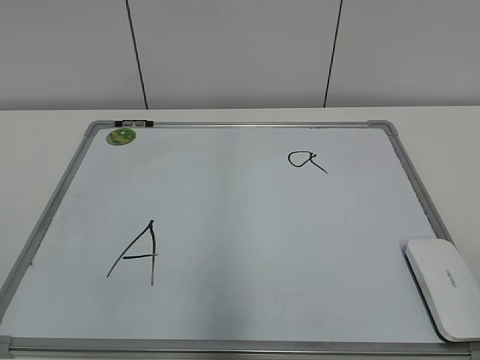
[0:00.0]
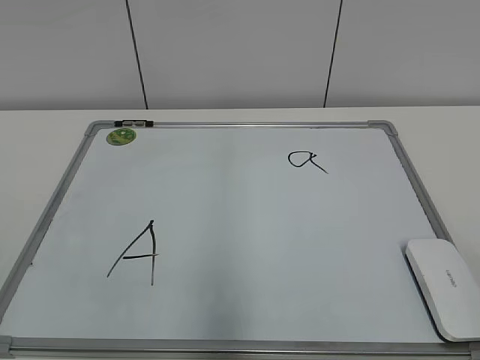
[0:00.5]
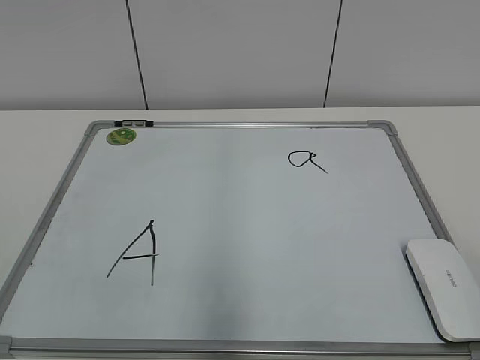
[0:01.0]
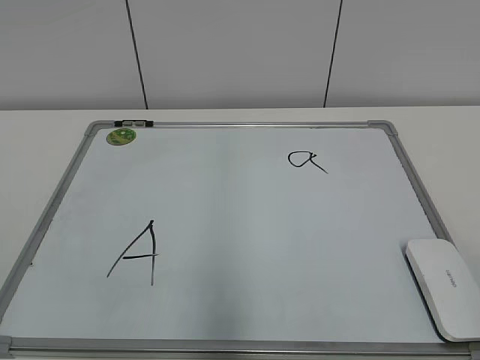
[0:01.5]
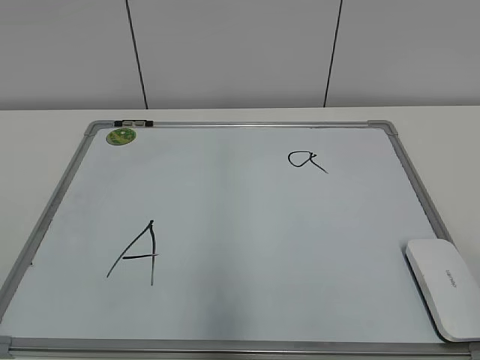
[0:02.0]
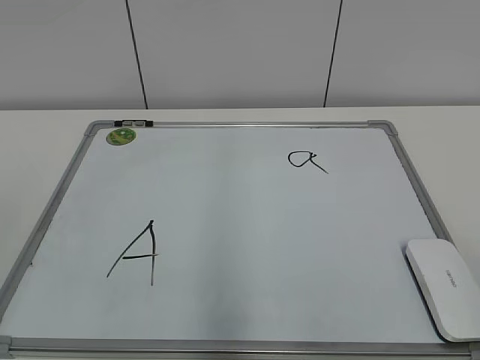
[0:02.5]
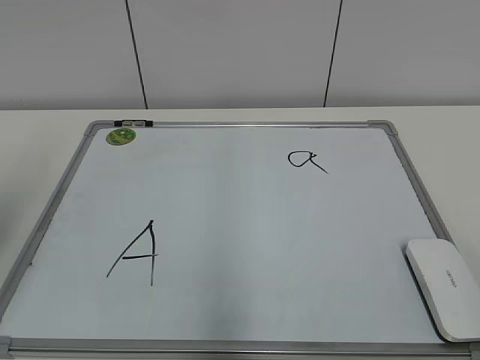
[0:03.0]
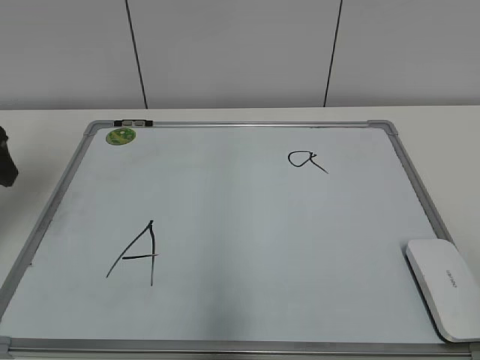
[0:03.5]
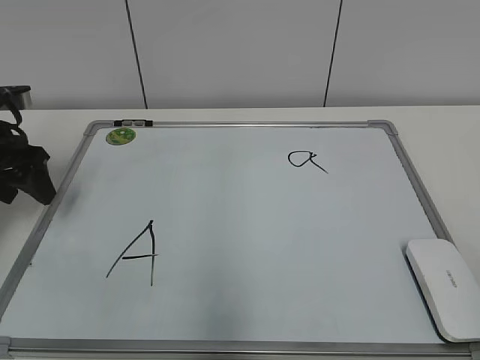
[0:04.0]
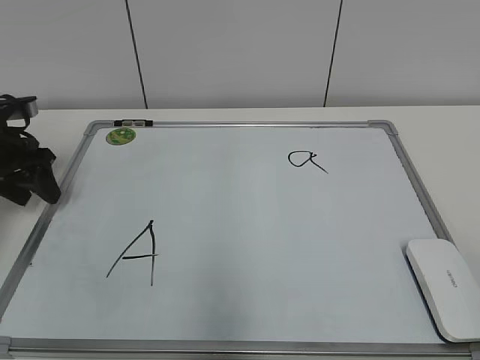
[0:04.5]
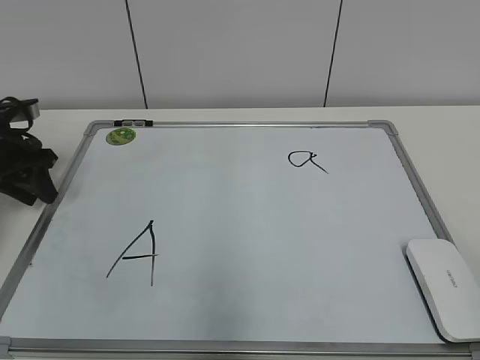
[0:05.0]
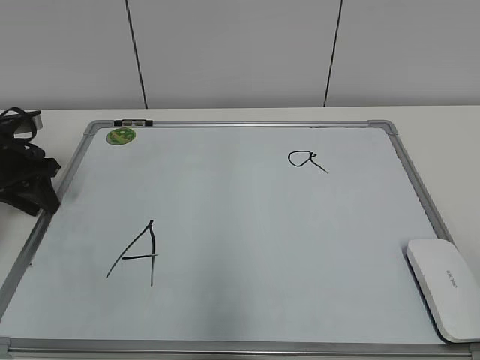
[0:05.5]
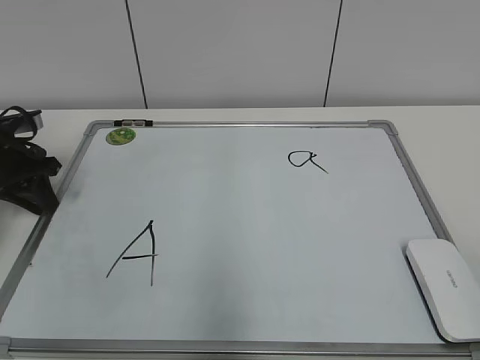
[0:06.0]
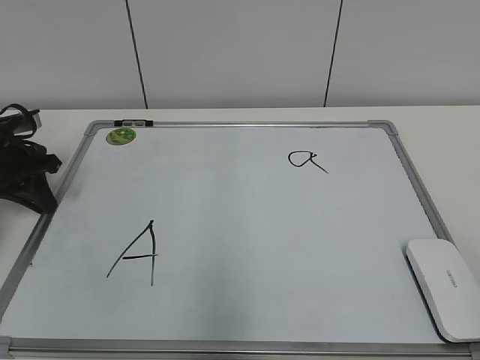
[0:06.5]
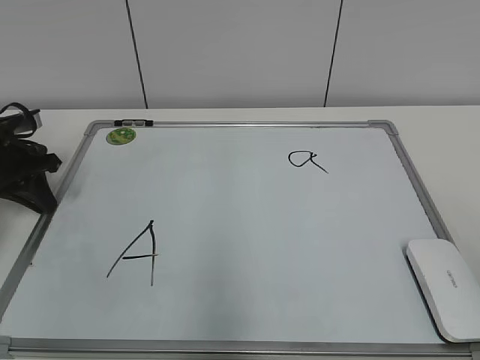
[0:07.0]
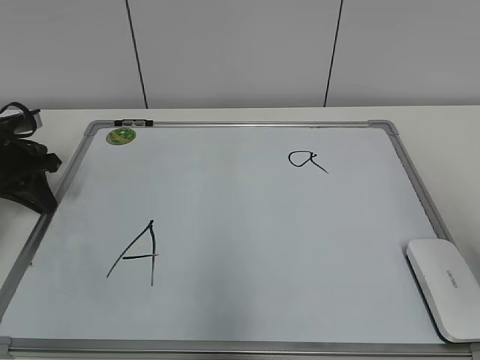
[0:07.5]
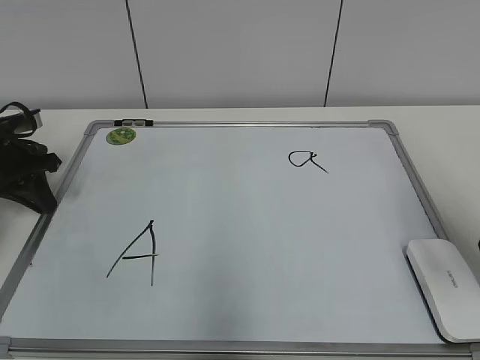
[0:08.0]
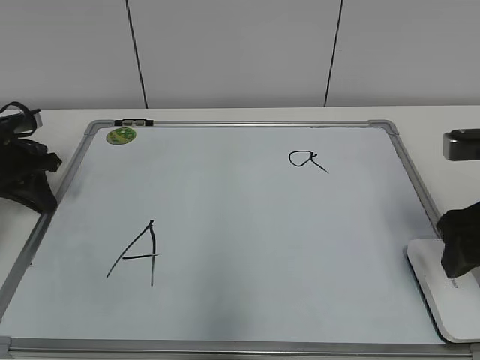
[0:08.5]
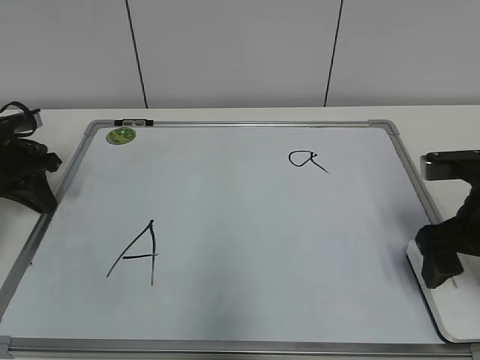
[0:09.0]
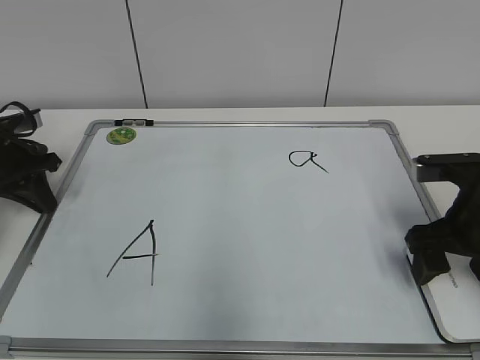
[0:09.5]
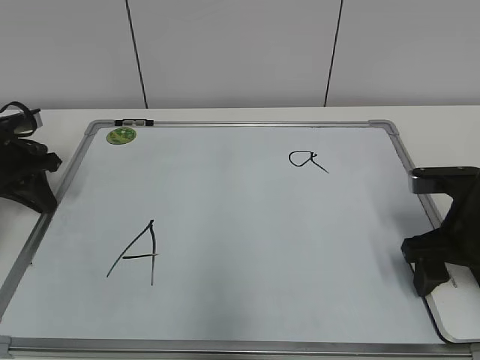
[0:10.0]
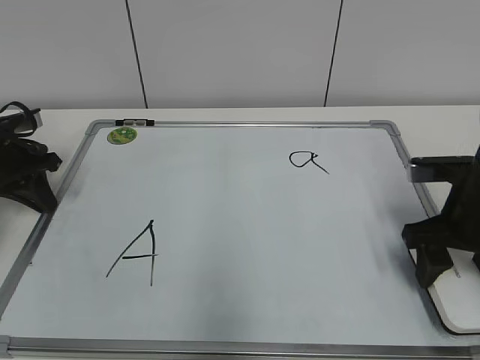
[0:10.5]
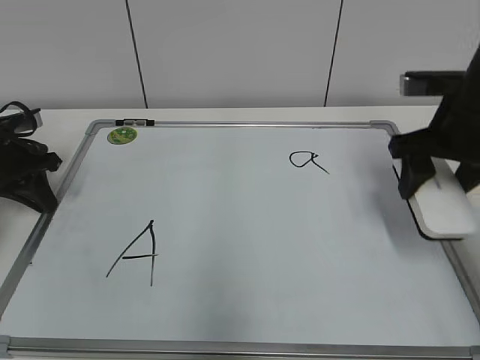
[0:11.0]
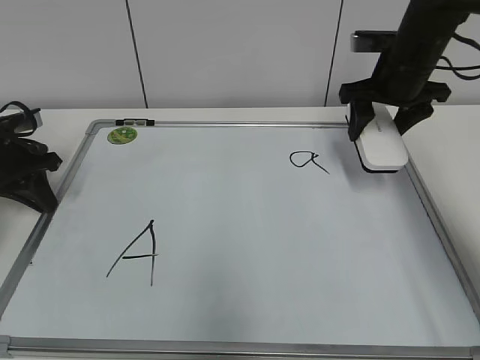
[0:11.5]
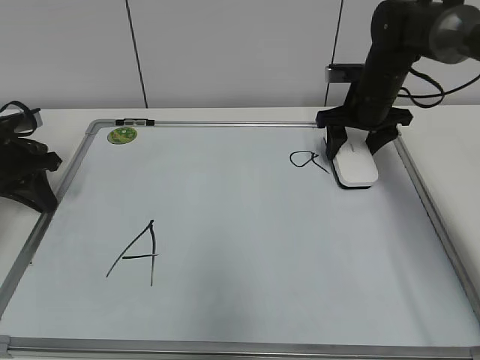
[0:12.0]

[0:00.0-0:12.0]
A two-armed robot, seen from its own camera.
Task of the whole recording: pick up the eraser on the blackboard and erase the letter "a".
Step, 0:00.0 to 0:06.0: Hold the drawing board steady with your left hand.
Step, 0:06.5 to 0:10.0: Grab the eraser with your right hand.
0:02.0 to 0:04.0: The left gripper is displaced forward by about 35 cm.
0:04.0 to 0:06.0: The left gripper goes roughly 5 cm downward, and closes.
0:06.0 to 0:08.0: The right gripper shifts some 20 cm forward.
0:08.0 to 0:10.0: The right gripper goes some 15 cm downward and forward, and opens and closes again.
0:10.0 to 0:12.0: The right gripper is displaced forward by some 20 cm, and closes its fingers.

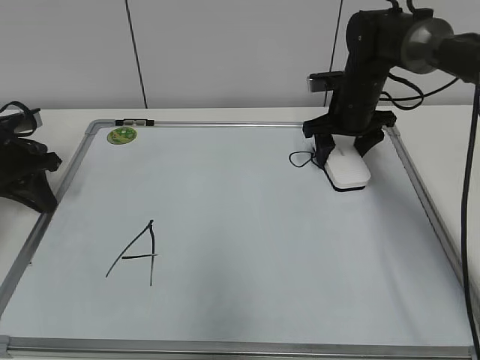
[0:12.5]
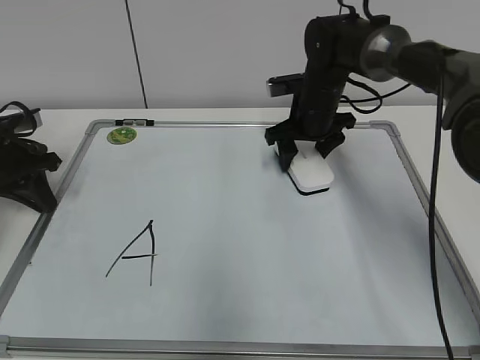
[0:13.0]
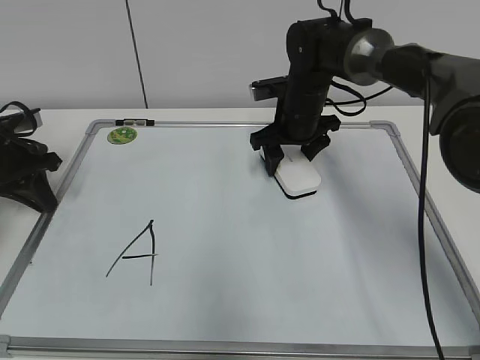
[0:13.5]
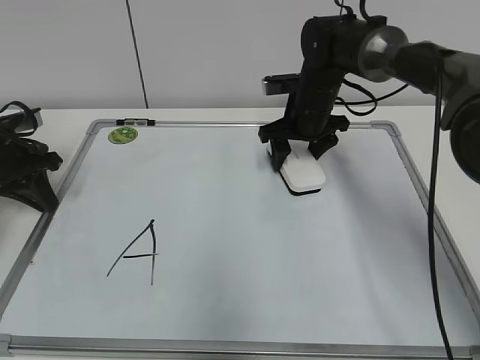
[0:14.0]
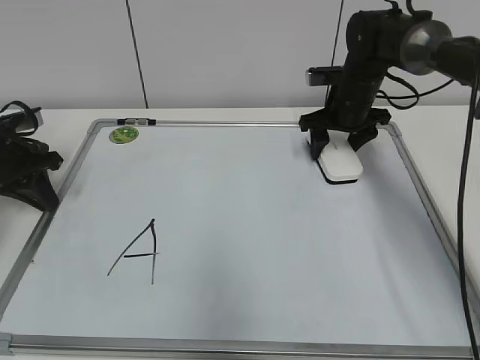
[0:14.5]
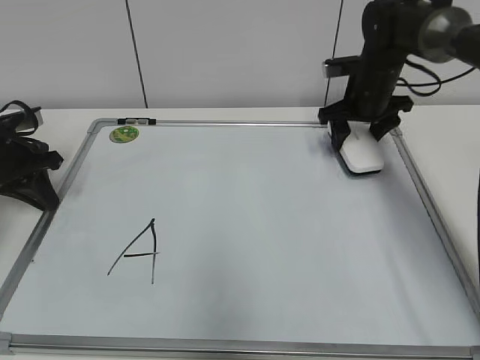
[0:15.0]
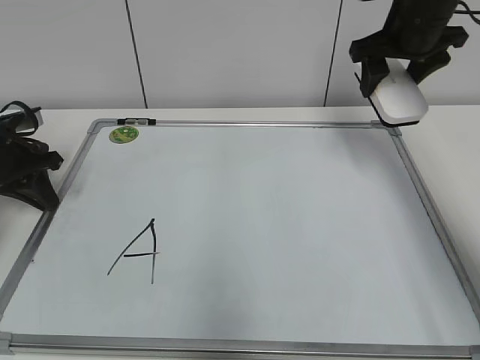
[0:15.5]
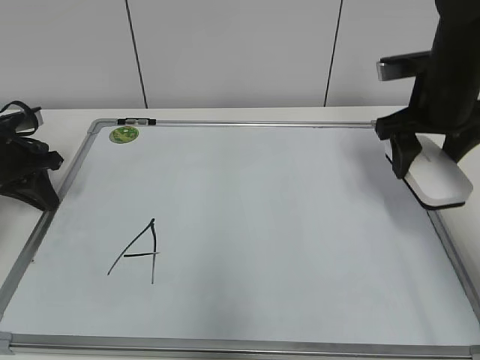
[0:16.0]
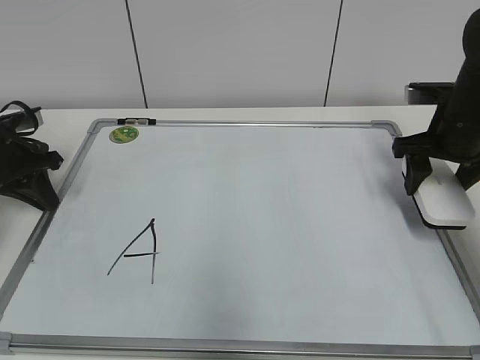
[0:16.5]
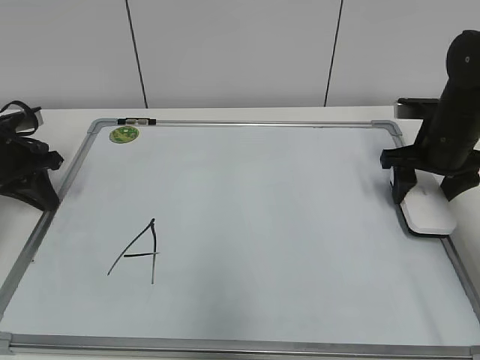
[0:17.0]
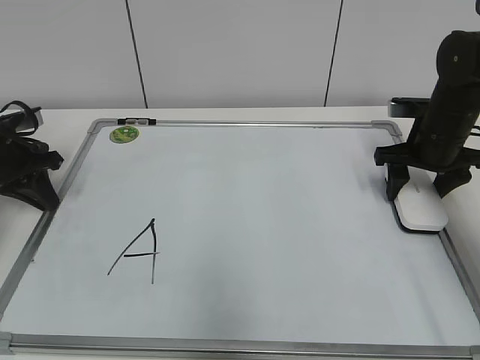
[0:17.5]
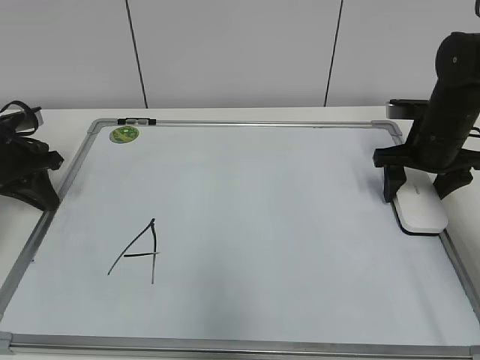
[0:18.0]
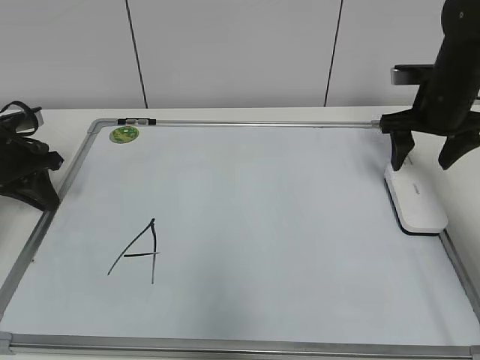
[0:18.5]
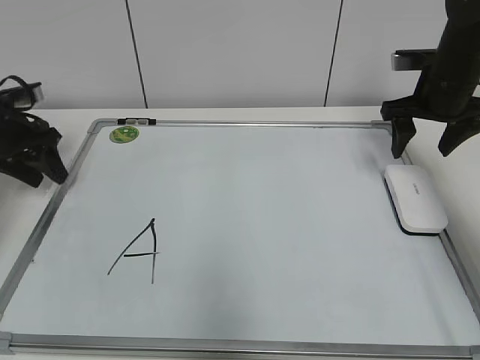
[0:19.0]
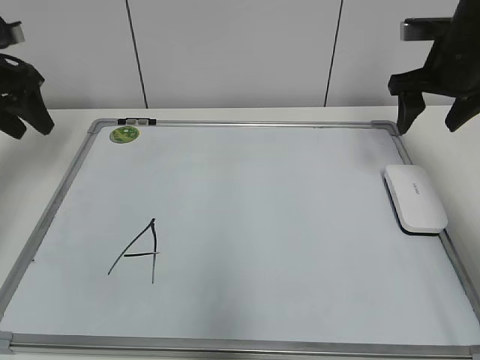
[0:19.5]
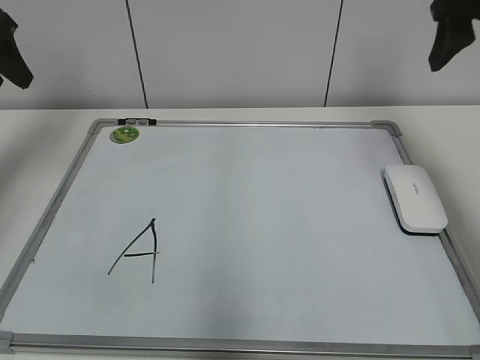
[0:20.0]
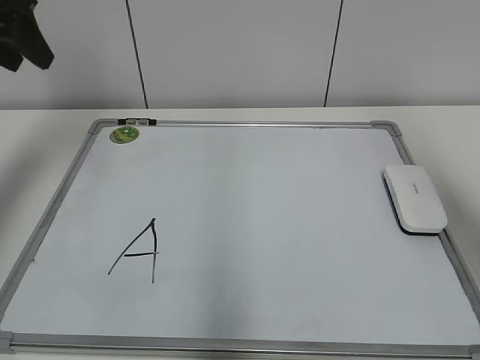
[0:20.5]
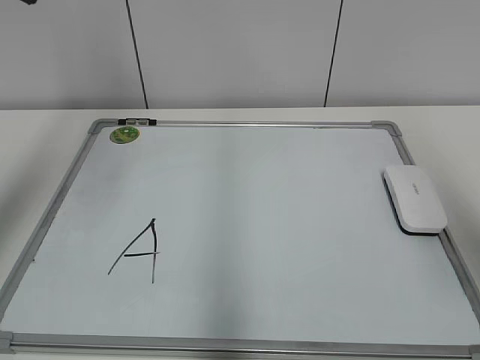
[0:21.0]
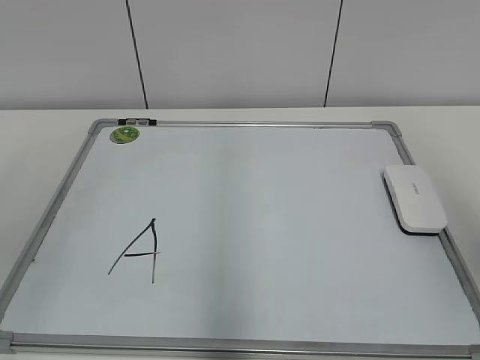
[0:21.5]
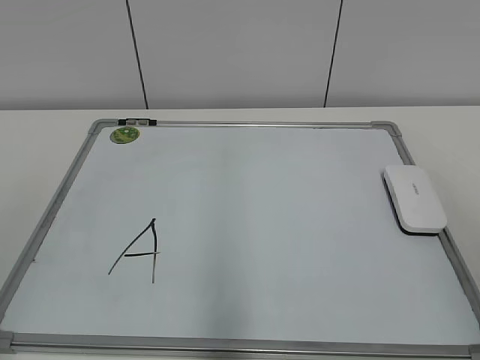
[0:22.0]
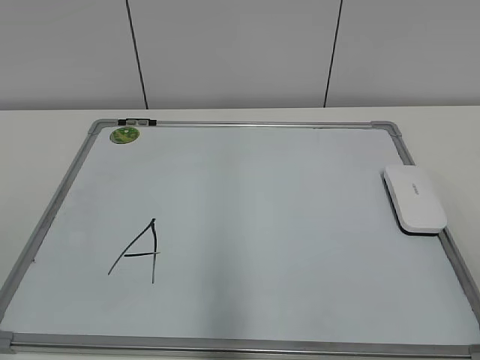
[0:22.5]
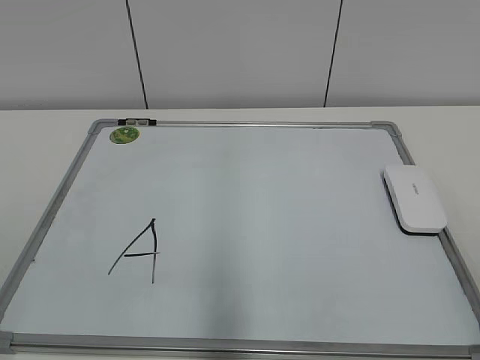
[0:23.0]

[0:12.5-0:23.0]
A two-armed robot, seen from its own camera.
Task of the whole recording: pick up the eraser on the blackboard and erase the letter "a".
Step, 0:12.5 to 0:14.5: Erase the letter a with your right hand.
Step, 0:15.0 to 0:18.0: Put down the eraser with your right hand.
0:12.5 to 0:14.5: The right gripper moves roughly 10 cm to the left and comes back.
0:14.5 to 0:16.5: The right gripper shifts about 15 cm backward and to the right, and travels upward and back again, roughly 15 cm each way.
0:16.5 to 0:19.0: The right gripper travels forward by approximately 5 cm, and opens its fingers; the left gripper opens.
0:19.0 to 0:21.0: The left gripper heads upward and backward, covering about 30 cm. Meanwhile the right gripper is displaced backward and upward by roughly 35 cm.
0:21.0 to 0:23.0: The left gripper travels backward and downward by about 30 cm.

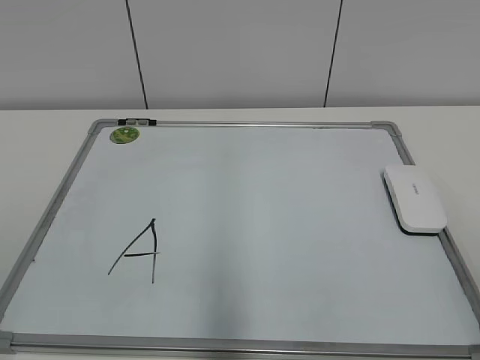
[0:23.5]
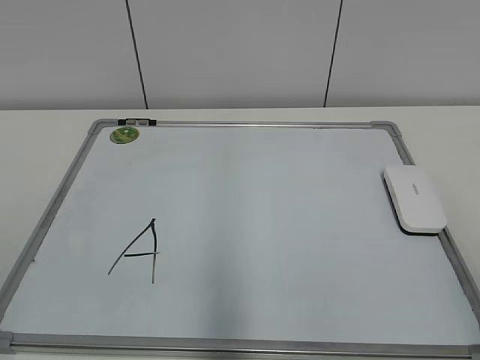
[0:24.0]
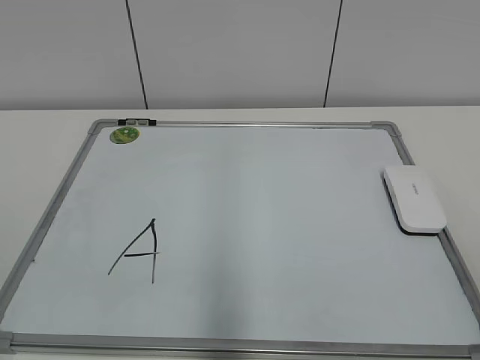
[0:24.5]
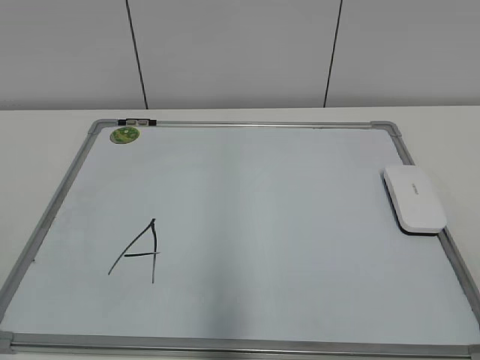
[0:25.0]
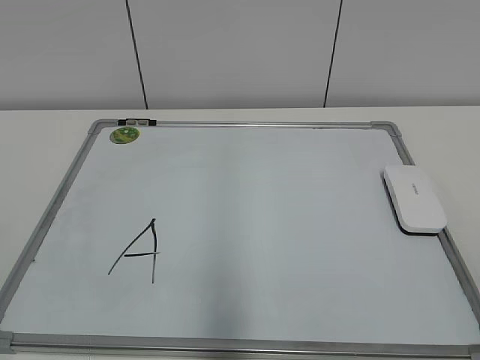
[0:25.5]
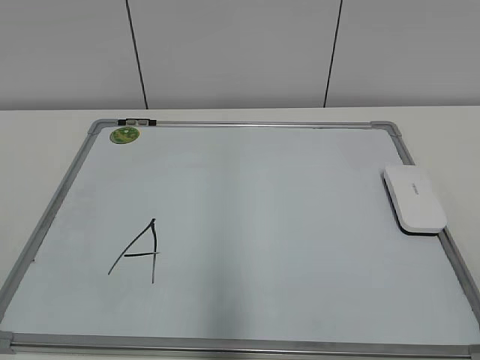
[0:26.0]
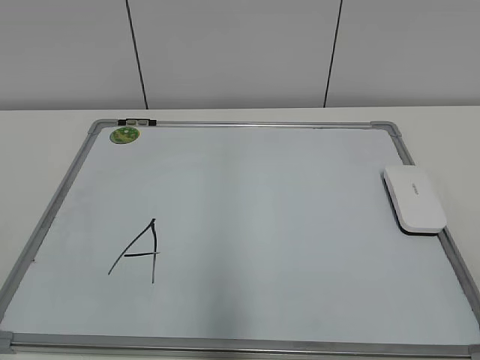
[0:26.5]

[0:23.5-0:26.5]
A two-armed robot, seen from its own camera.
Task of the whole recording: pick up the eraser on the blackboard and erase the letter "a".
0:25.0 to 0:26.5: The two grippers keep their place.
